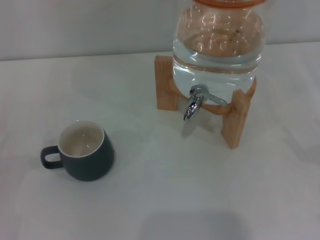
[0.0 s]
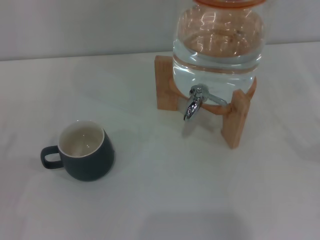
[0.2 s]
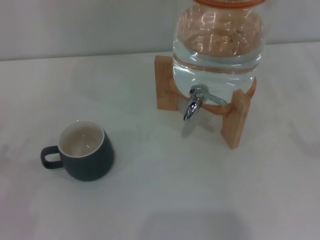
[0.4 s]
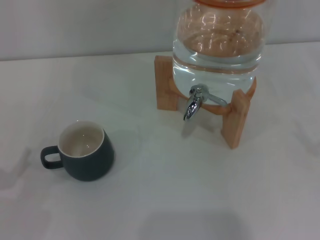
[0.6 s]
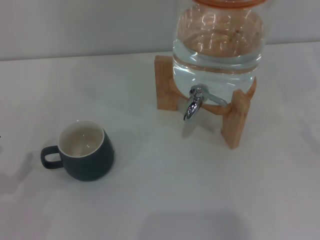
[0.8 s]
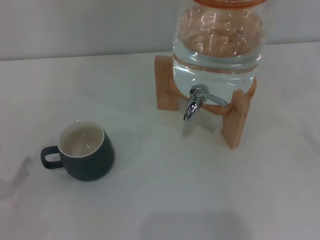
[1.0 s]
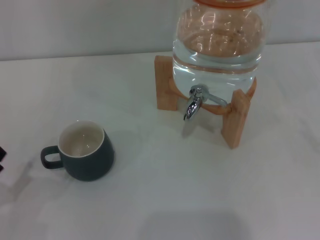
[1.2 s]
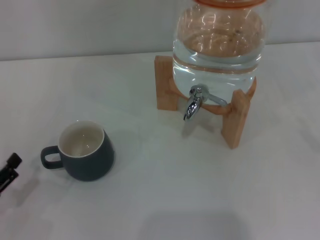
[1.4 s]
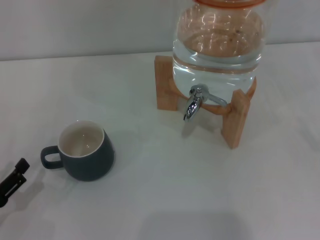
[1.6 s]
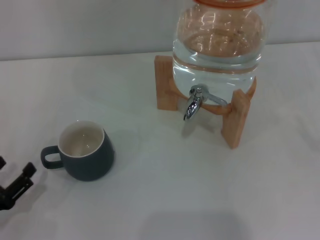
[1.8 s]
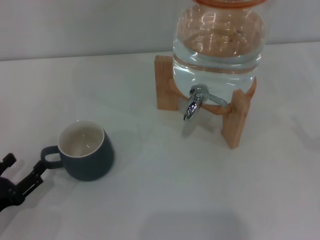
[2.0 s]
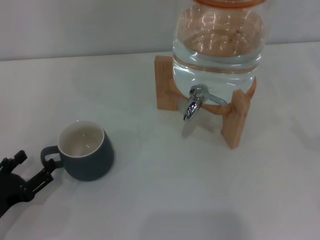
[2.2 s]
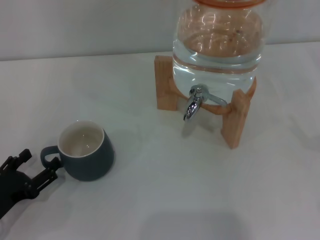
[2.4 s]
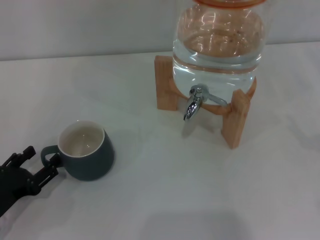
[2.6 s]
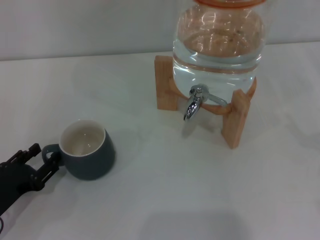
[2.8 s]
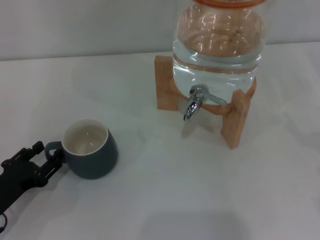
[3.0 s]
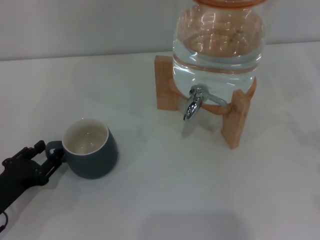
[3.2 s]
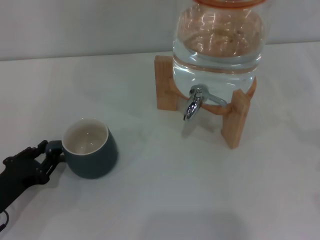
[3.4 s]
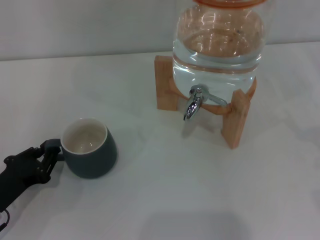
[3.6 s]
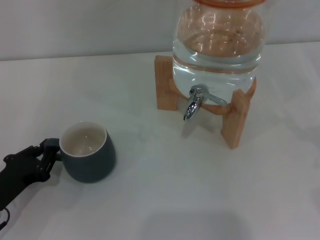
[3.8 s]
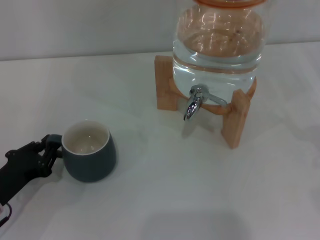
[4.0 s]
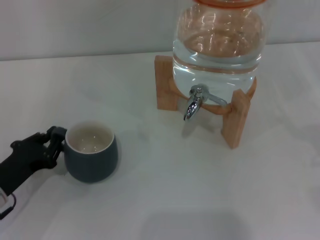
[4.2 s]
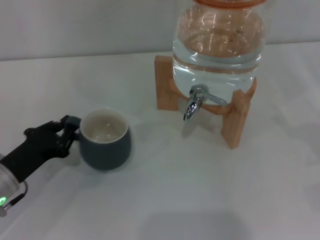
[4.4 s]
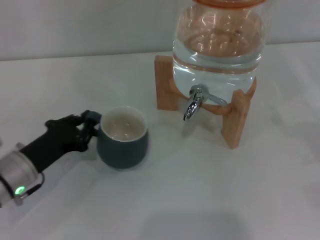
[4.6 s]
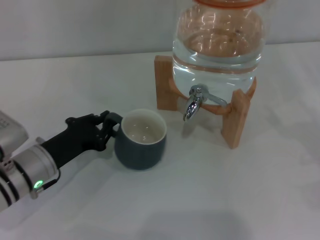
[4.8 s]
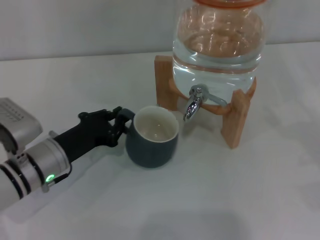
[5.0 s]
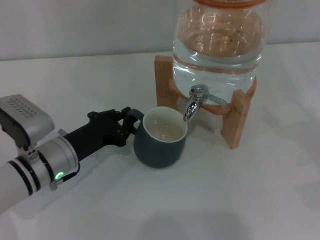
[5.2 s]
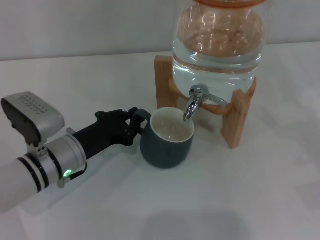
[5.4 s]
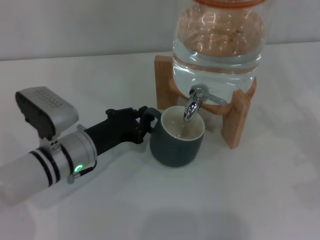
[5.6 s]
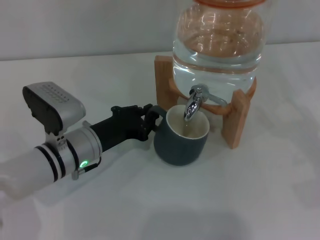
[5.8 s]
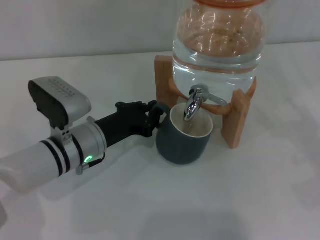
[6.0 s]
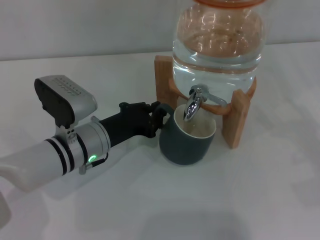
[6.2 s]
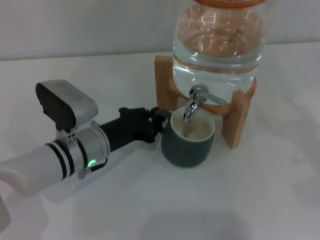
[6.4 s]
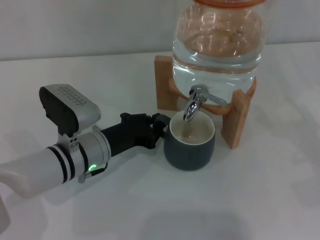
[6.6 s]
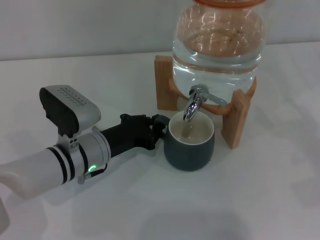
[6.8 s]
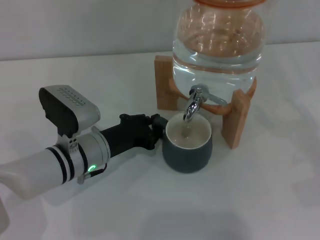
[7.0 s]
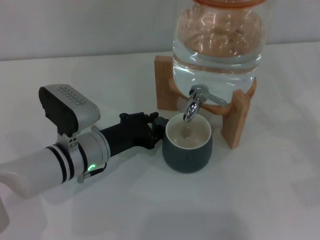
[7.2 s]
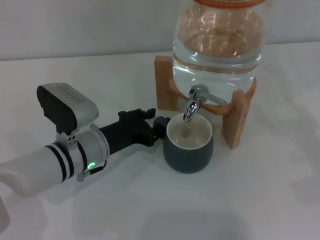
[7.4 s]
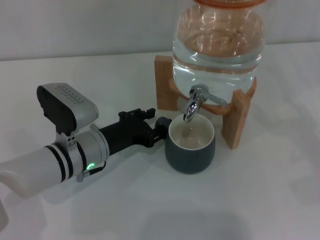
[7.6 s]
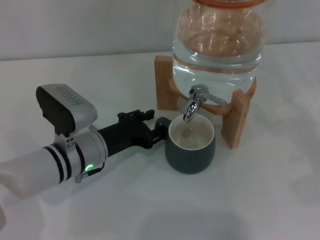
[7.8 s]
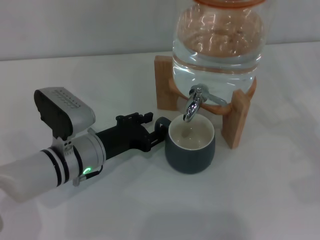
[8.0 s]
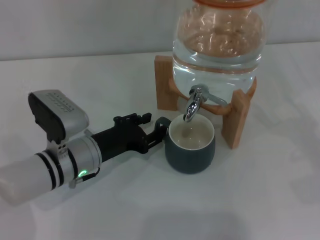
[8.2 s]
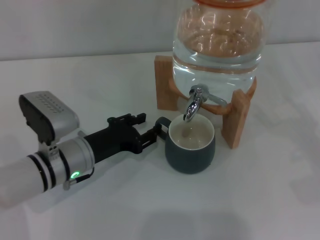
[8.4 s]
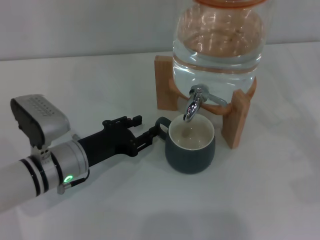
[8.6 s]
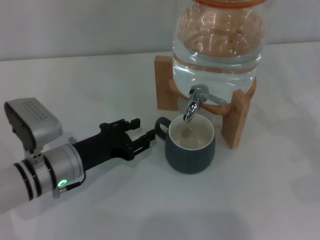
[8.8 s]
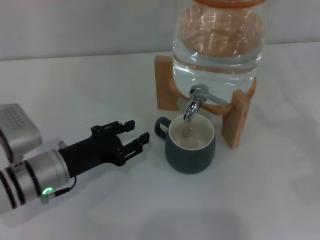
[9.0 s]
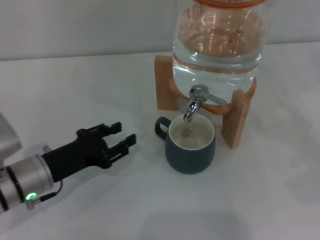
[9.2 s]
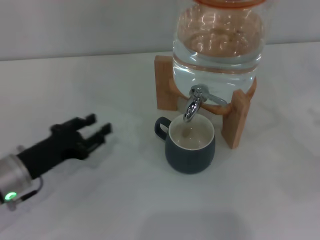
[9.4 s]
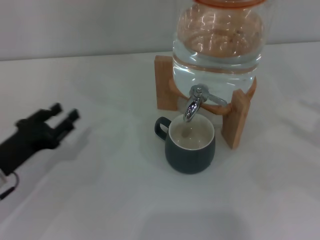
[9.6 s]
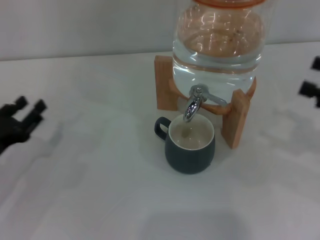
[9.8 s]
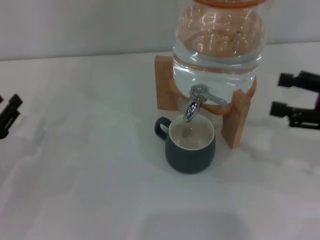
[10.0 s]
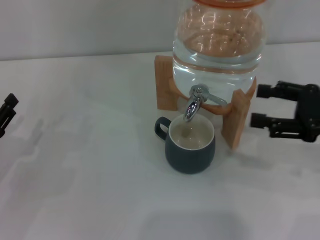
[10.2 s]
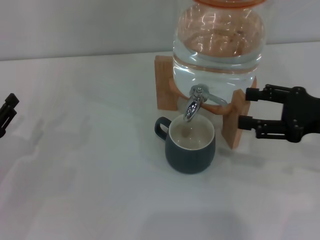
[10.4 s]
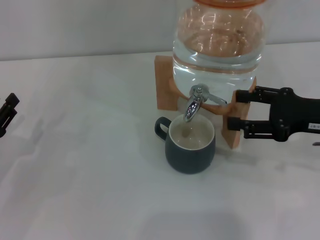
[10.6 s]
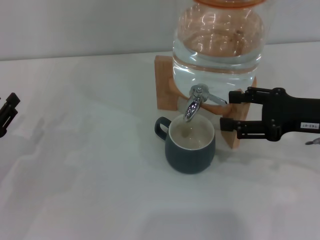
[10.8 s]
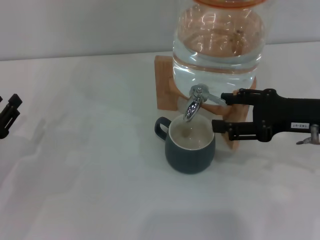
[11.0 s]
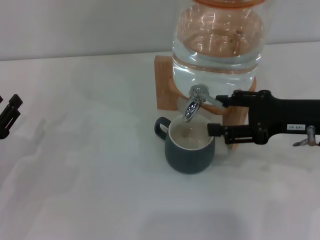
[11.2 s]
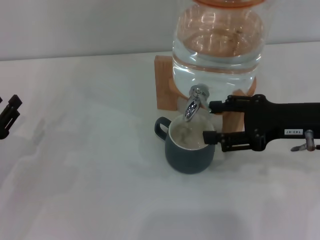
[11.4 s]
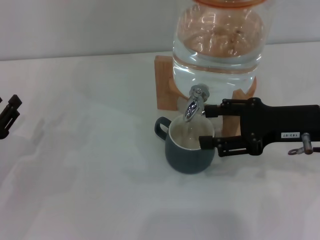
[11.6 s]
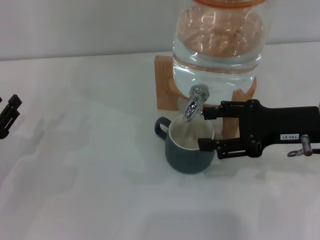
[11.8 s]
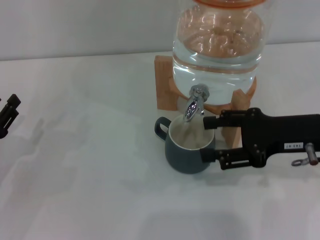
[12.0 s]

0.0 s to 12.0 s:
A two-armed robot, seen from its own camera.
Task of the whole recording: the left gripper pick up the black cup and place it horizontally under the faucet, the right gripper turn on the faucet to fill the cup, and then turn off the faucet.
Step, 0.0 to 8.2 s: Move the cup beneath the water dispenser nozzle with the left gripper.
Step, 8.4 to 12.0 s: Open the dispenser valve and fill the cup with water with the right gripper.
0.0 to 1.6 s: The left gripper moves to the right, some 5 cm.
1.6 to 3.0 s: The left gripper moves forward, approximately 5 cm.
3.0 to 4.4 s: The left gripper changes place by roughly 5 cm, and closes up.
4.4 to 6.0 s: The left gripper travels to the right and forward by approximately 15 cm.
6.0 to 7.6 s: The two grippers keep their place.
7.6 to 9.0 s: The left gripper goes about 5 cm to the left.
9.0 to 10.4 s: The right gripper goes some 15 cm to the left and upward. Meanwhile the left gripper travels to the left by some 15 cm.
10.4 to 12.0 s: The right gripper changes place by approximately 5 cm.

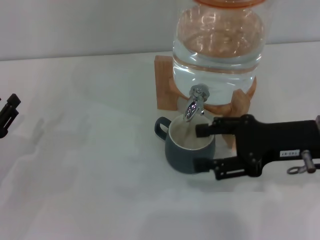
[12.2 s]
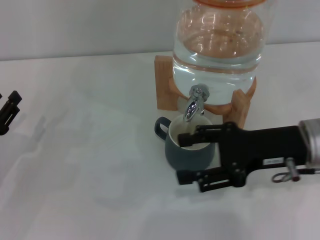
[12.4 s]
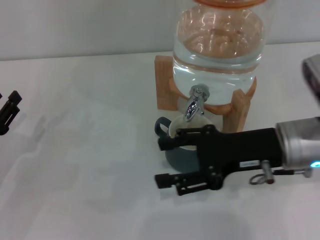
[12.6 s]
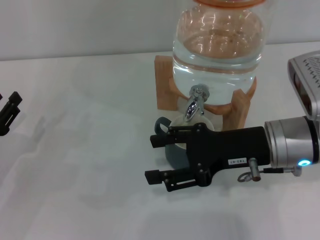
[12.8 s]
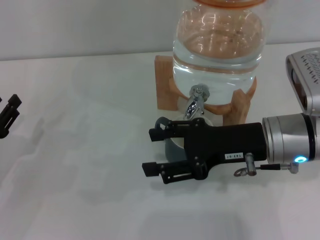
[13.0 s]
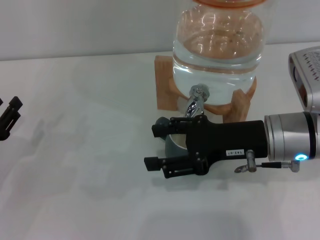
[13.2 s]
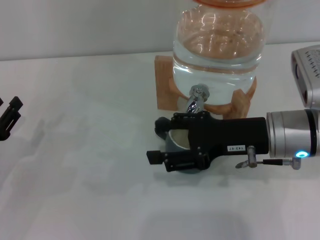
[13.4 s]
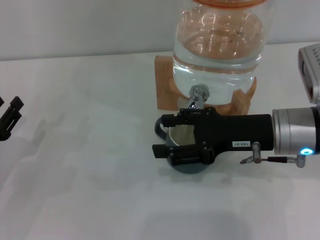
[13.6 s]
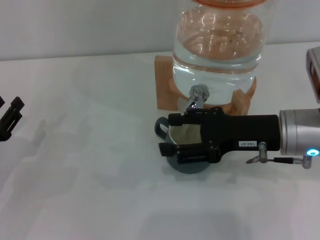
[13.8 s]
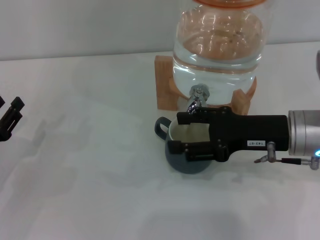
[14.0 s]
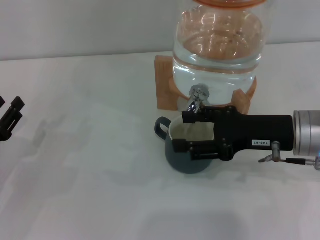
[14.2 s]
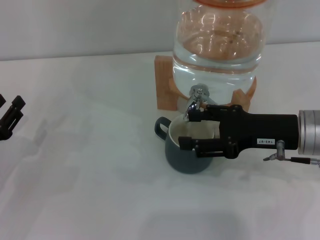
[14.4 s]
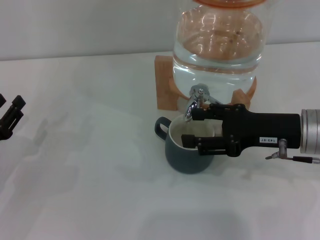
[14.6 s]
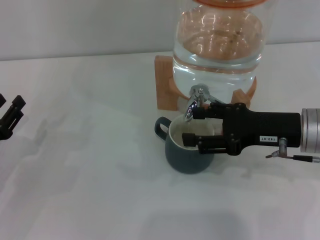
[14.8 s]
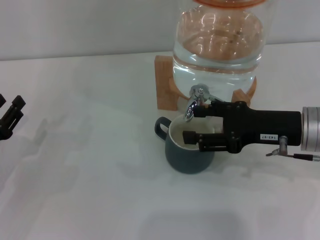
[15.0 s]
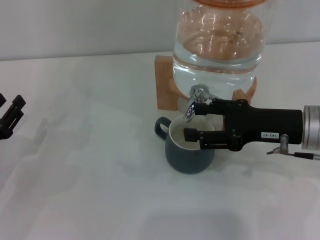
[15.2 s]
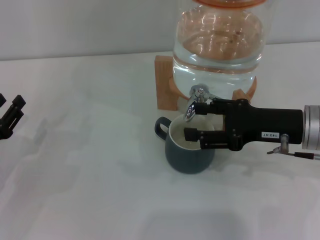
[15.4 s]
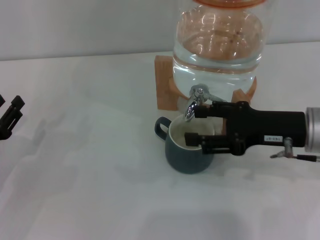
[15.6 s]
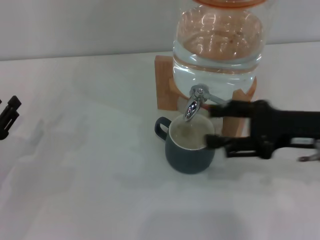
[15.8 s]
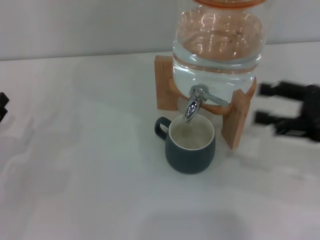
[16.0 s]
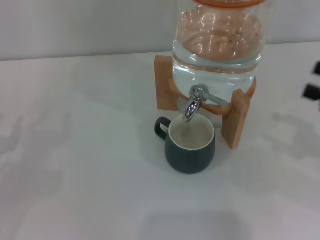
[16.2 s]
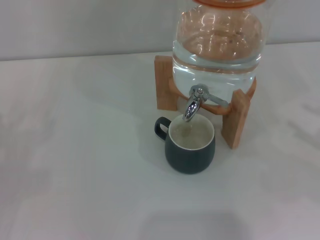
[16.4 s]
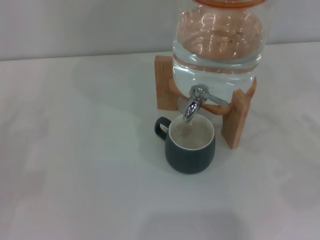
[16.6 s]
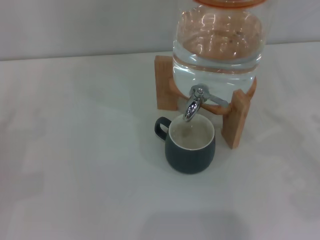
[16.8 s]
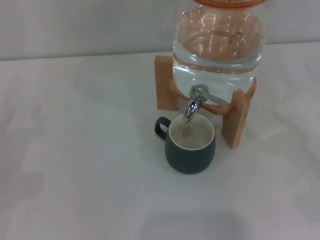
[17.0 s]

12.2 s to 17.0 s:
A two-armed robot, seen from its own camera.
Task of the whole recording: the left gripper pick up the black cup and place it horizontally under the faucet, the right gripper turn on the faucet to fill the cup, and then turn off the faucet.
Step, 12.2 to 15.8 s: Close the dispenser valve with the right gripper.
13.8 to 15.4 s: There are only small adjustments of the grippers.
15.4 to 17.0 s: The left gripper travels to the left by approximately 5 cm. Meanwhile the right gripper shifts approximately 20 cm to the right and backward.
